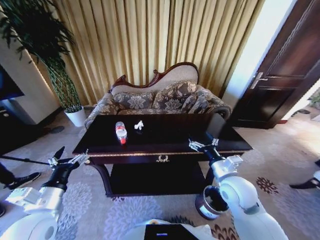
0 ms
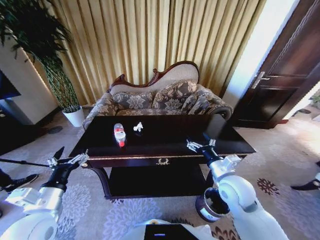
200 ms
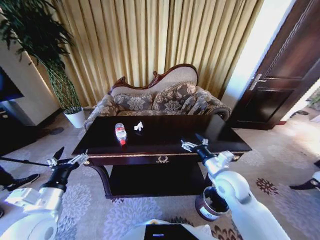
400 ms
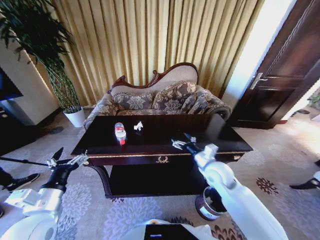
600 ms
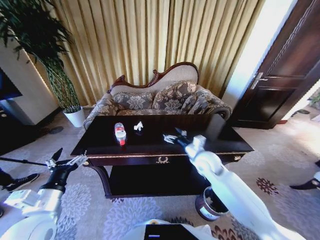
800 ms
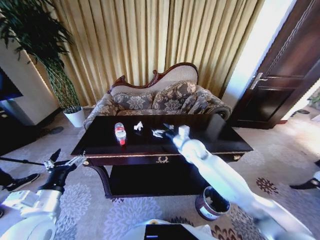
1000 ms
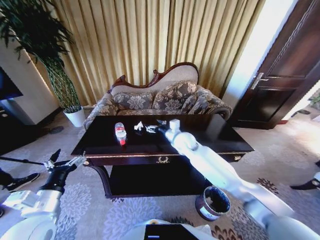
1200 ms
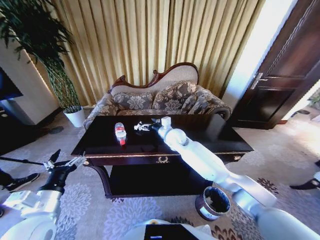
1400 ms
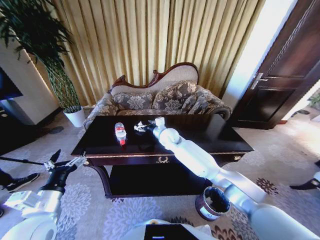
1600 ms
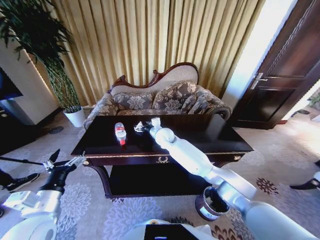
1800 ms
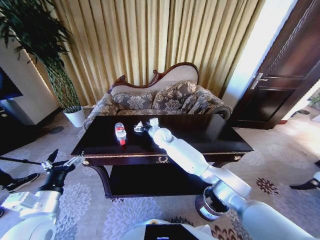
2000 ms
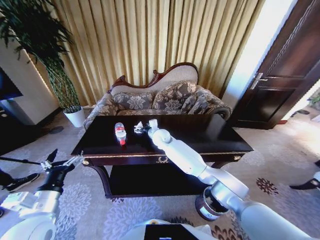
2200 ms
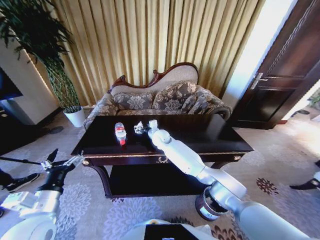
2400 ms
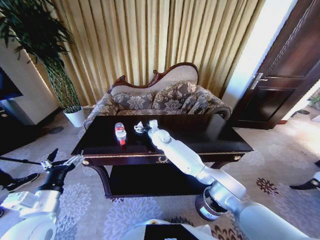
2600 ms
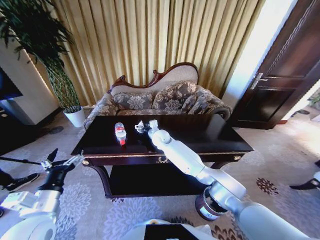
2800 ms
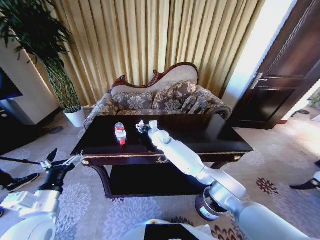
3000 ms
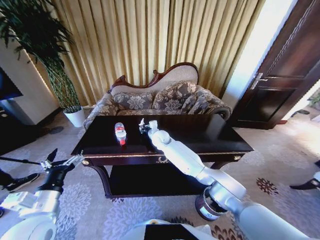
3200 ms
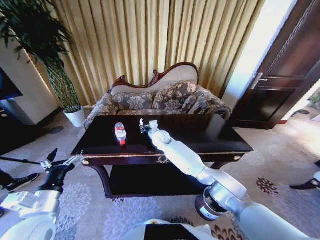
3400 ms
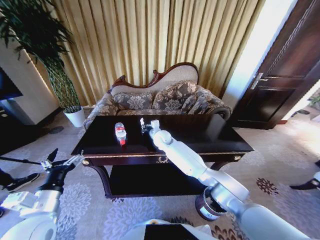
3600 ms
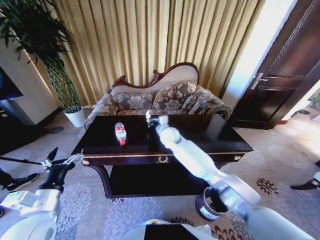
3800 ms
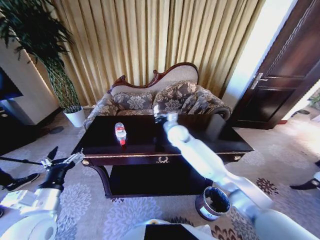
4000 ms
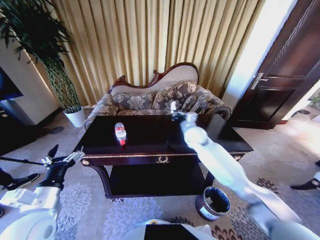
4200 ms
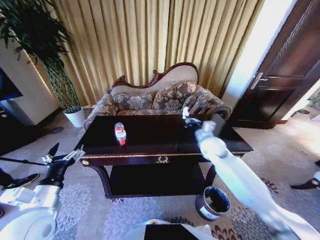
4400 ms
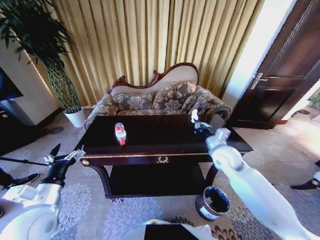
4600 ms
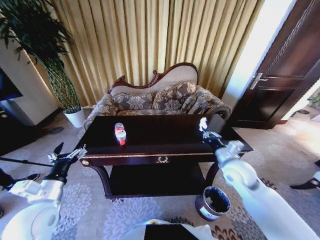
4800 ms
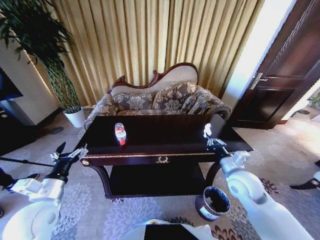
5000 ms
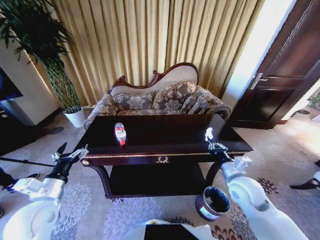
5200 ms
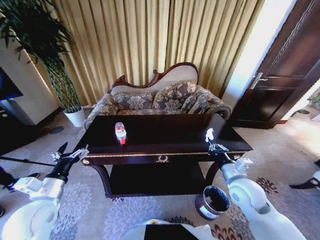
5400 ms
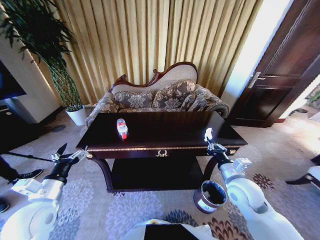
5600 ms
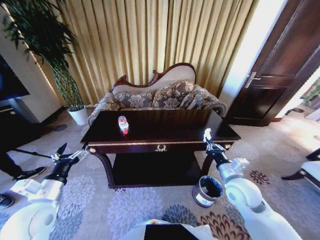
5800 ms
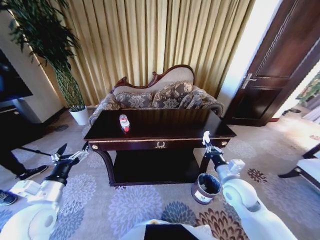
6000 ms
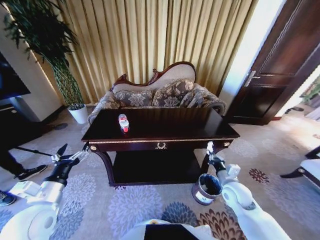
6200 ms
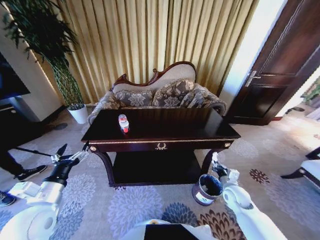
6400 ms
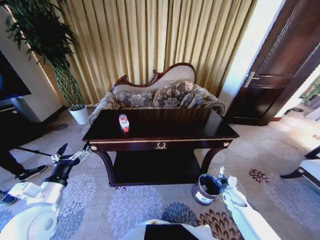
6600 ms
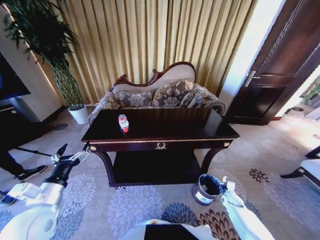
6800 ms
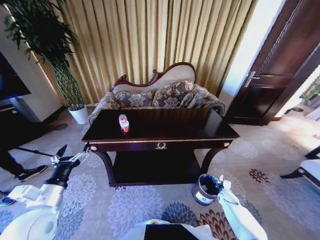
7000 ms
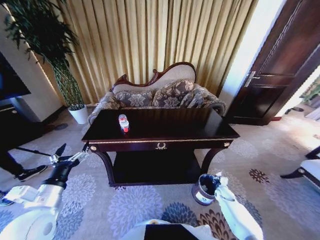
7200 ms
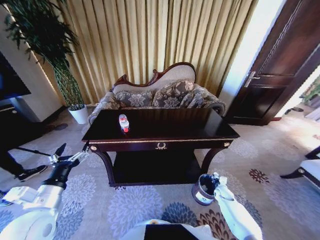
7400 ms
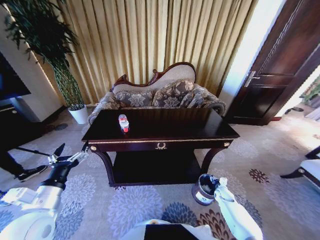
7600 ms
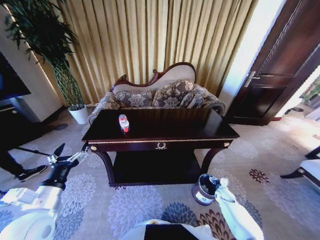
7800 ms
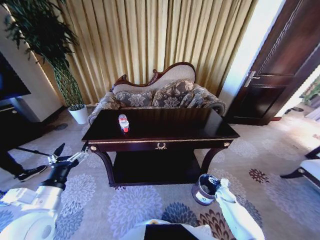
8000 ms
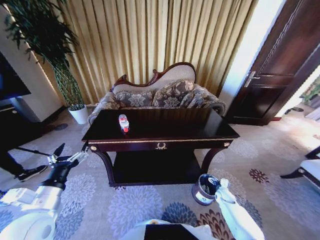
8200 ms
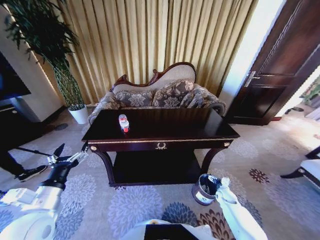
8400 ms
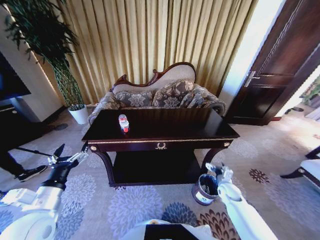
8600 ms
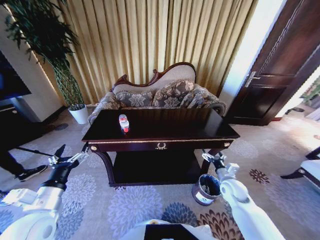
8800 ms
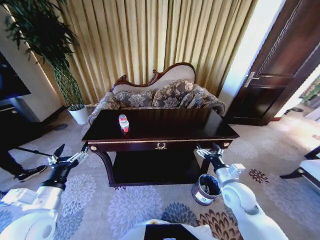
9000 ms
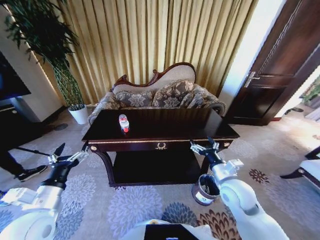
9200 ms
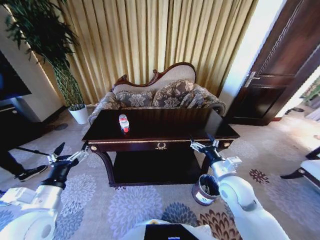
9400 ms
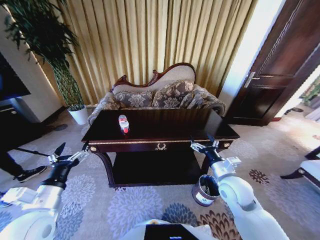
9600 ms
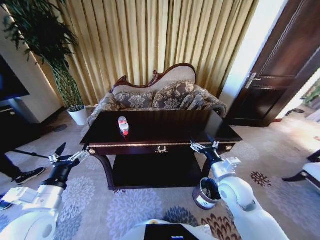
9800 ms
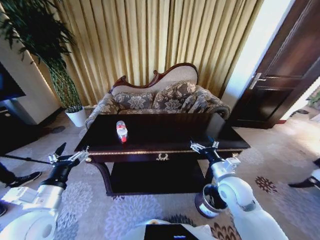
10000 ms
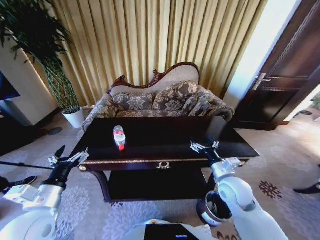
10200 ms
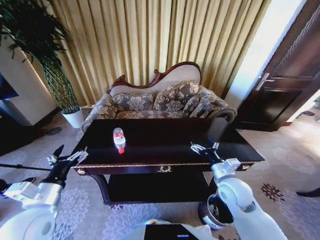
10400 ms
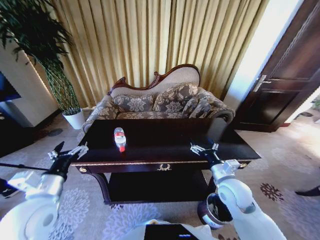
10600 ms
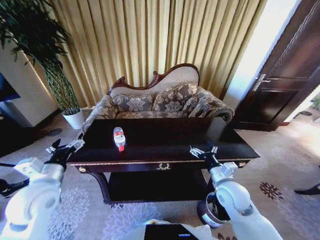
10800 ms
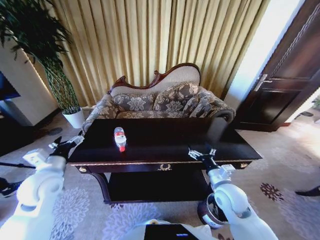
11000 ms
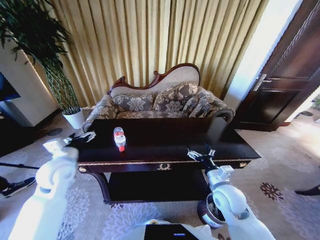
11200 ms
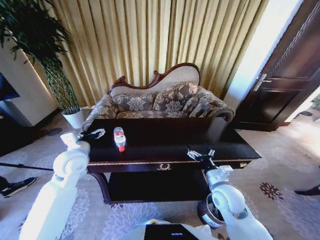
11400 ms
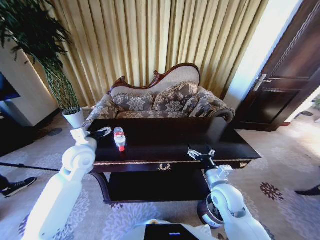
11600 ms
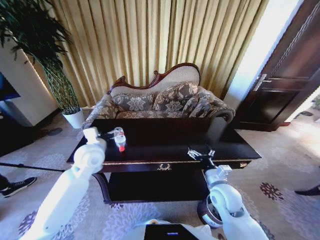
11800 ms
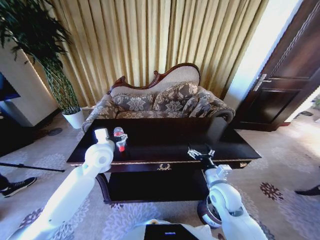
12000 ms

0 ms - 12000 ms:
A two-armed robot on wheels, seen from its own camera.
Task of the whole recording: Move to the front of the table and place the trash on the table into the trash bin.
0 ms - 1600 ms: The right gripper moves forward and to the left, about 30 cm.
1600 ms - 3000 ms: The right gripper shifts by roughly 5 cm, and closes up.
3000 ms - 4400 ms: The right gripper moves to the right and backward, about 25 cm, and closes.
4400 ms - 6000 ms: The right gripper travels backward by roughly 15 cm.
6000 ms - 7600 ms: The right gripper moves downward and to the right, roughly 30 cm, and opens up.
7600 ms - 9000 ms: The right gripper shifts about 30 cm upward and to the left, and opens its fingers.
10400 ms - 12000 ms: The left gripper shifts about 25 cm forward and to the right.

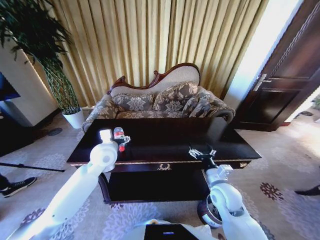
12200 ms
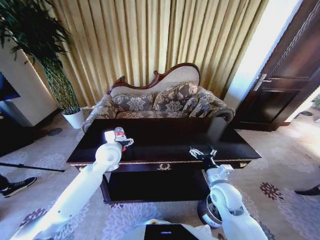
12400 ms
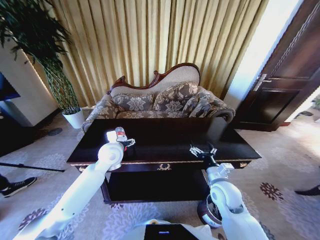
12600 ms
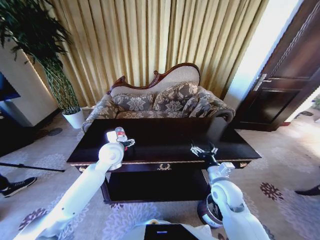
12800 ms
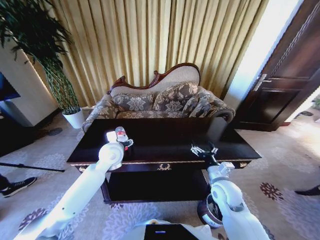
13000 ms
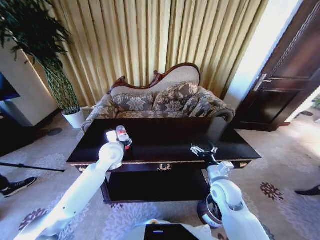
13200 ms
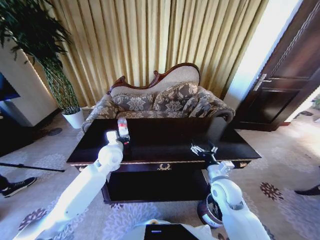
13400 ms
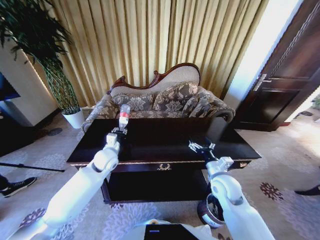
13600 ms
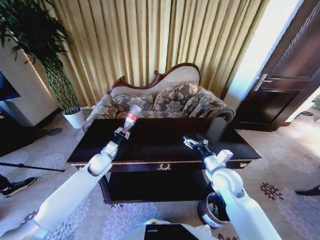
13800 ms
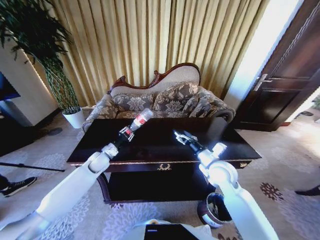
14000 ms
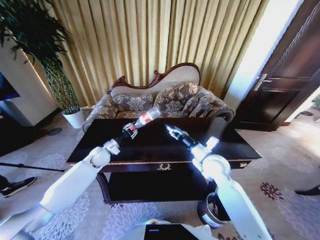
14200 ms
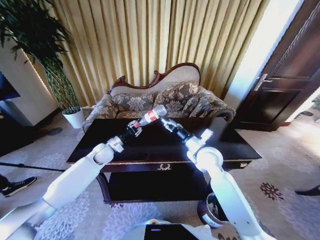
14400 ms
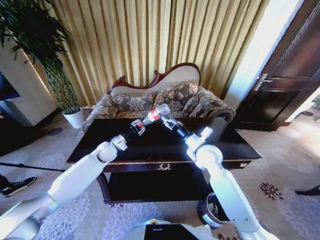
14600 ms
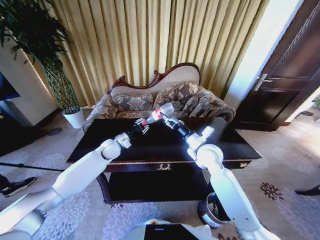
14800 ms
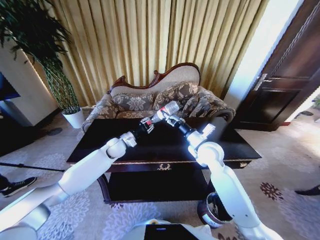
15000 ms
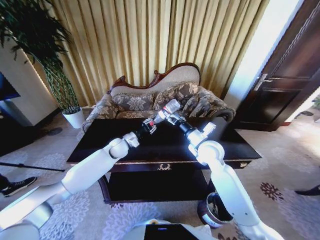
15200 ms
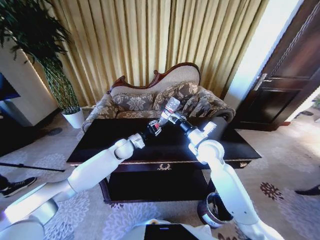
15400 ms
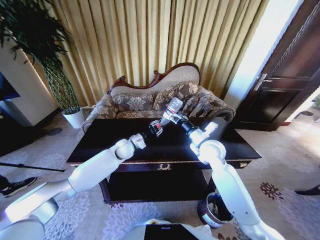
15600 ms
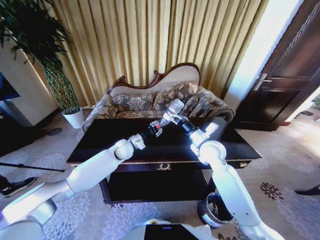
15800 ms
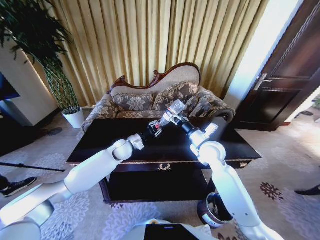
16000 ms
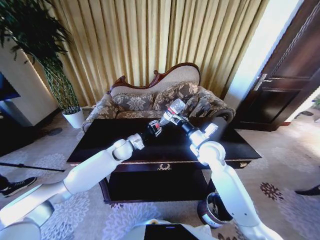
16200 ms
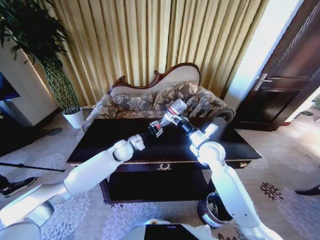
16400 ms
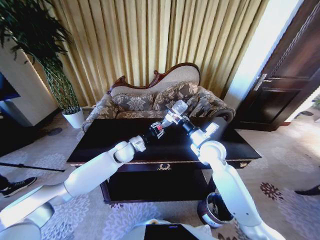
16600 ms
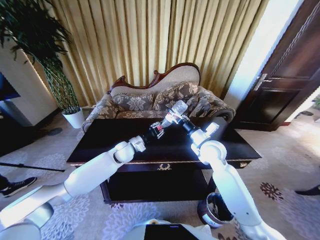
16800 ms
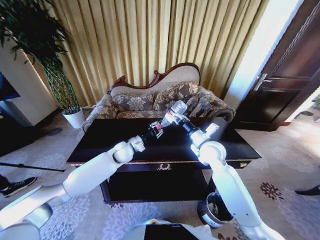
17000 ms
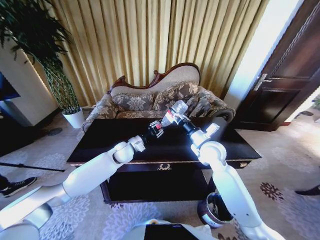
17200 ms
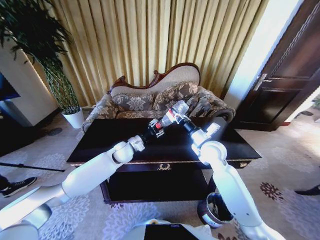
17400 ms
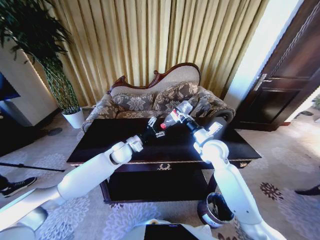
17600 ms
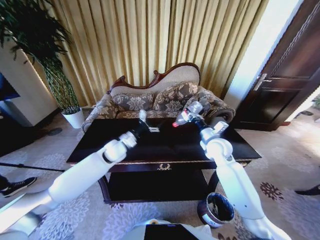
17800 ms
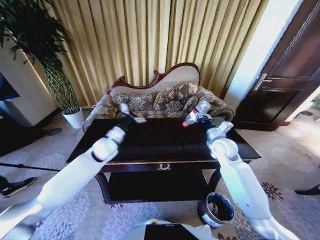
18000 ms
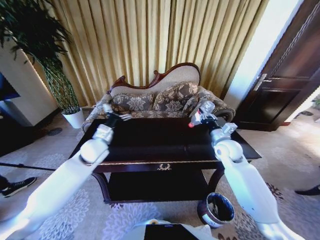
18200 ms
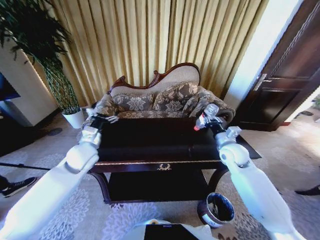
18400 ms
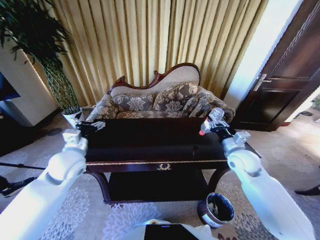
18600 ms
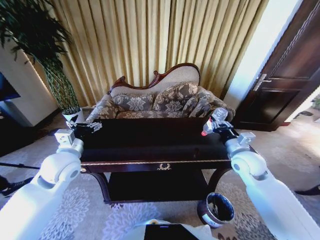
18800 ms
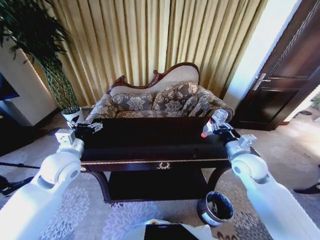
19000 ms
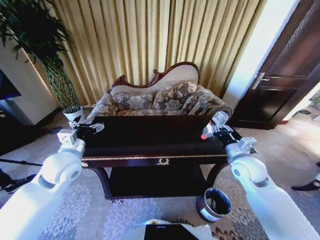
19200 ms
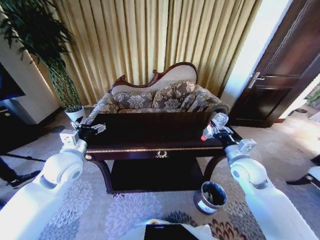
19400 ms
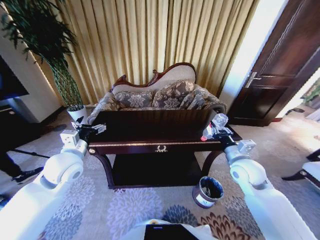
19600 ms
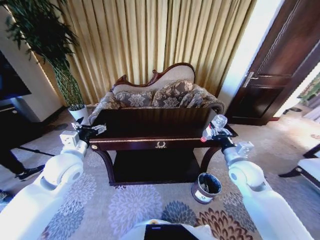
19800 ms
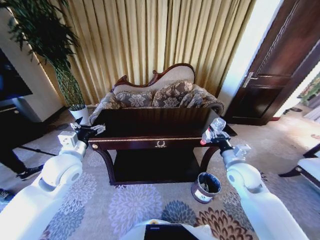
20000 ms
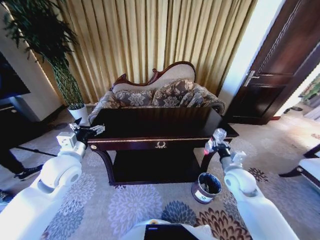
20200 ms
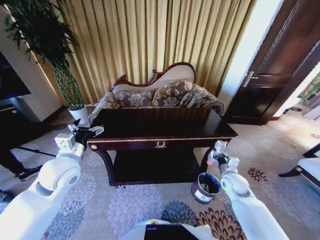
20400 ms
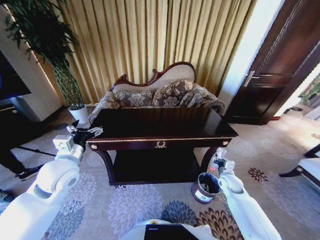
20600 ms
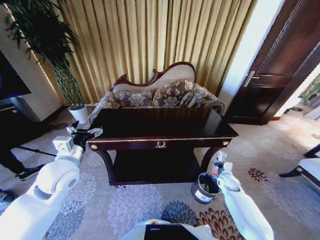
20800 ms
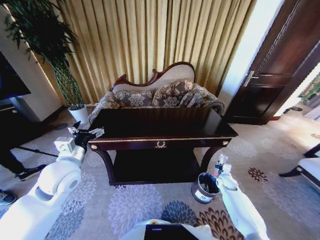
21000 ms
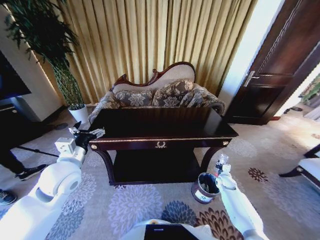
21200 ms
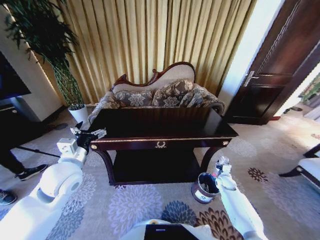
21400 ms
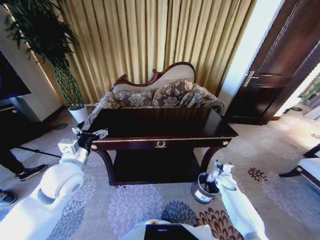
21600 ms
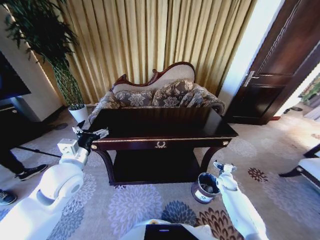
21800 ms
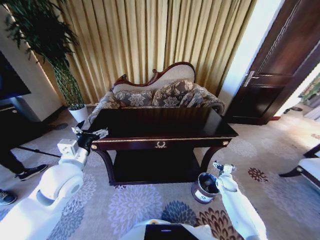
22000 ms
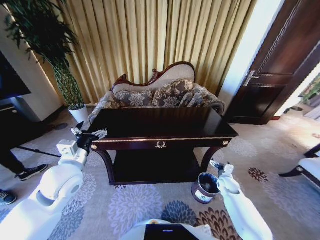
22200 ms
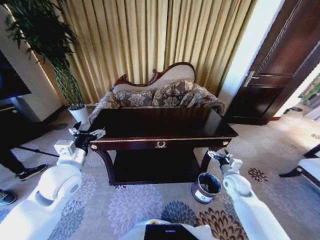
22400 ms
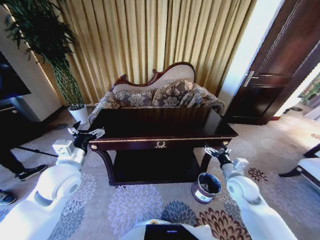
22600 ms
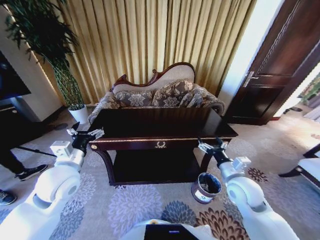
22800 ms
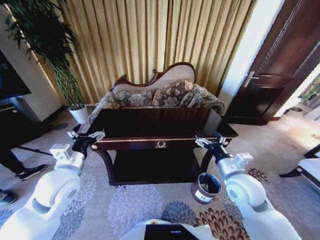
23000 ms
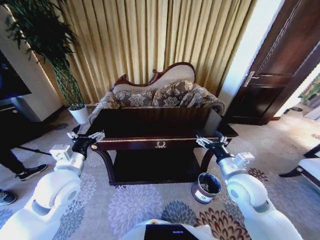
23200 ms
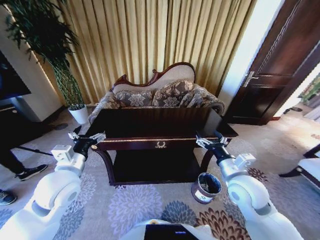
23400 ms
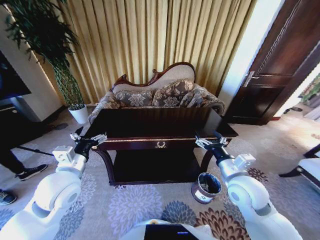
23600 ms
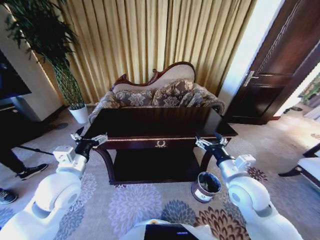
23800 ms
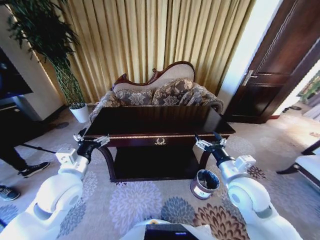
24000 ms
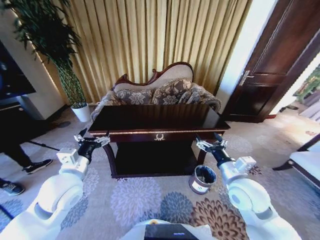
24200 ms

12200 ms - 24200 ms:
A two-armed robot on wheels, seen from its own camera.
Task of the whole recording: Move to the front of the table and place the trash on the table into the trash bin.
12200 ms - 13800 ms: The left gripper goes about 10 cm downward and to the left, and closes; the right gripper moves about 5 cm.
13800 ms - 15200 ms: The right gripper travels forward, upward and to the left by about 15 cm. The left gripper shifts about 10 cm forward and to the right.
15200 ms - 16600 ms: The grippers stay close to where they were, moving slightly.
16600 ms - 18200 ms: The right gripper shifts about 10 cm to the right, and closes, while the left gripper moves to the left, upward and backward, approximately 15 cm, and opens its fingers.
18200 ms - 19800 ms: The grippers both shift backward by about 10 cm.
19800 ms - 21200 ms: The right gripper heads downward, covering some 25 cm.
21200 ms - 22600 ms: The right gripper travels upward, backward and to the left by roughly 25 cm, and opens.
22600 ms - 24200 ms: The right gripper travels upward and to the left by approximately 10 cm.
